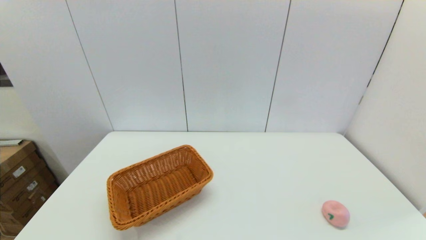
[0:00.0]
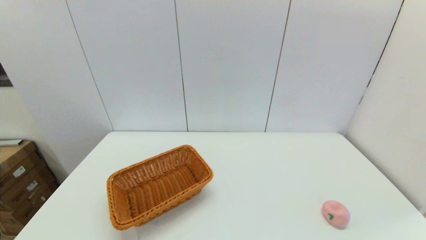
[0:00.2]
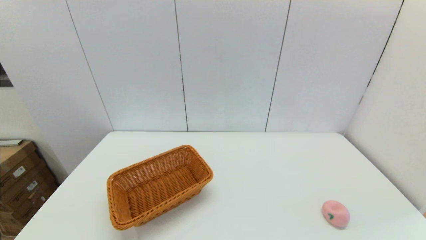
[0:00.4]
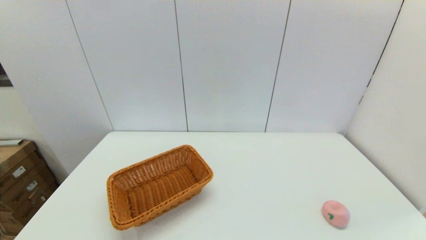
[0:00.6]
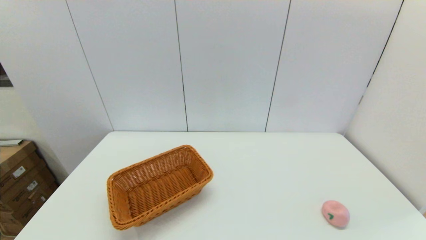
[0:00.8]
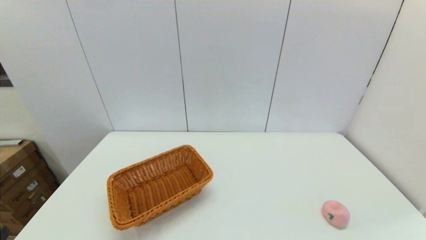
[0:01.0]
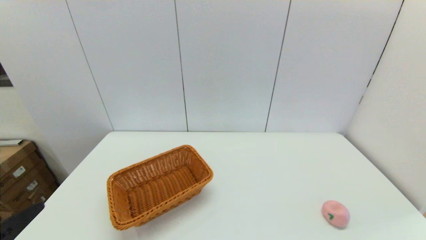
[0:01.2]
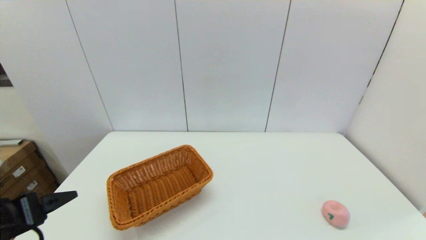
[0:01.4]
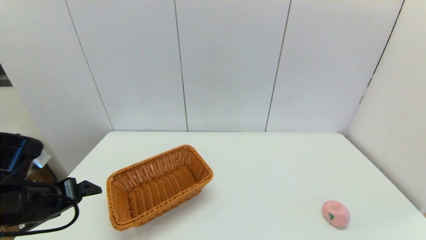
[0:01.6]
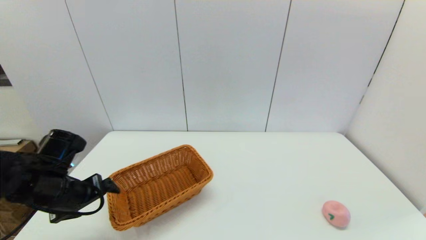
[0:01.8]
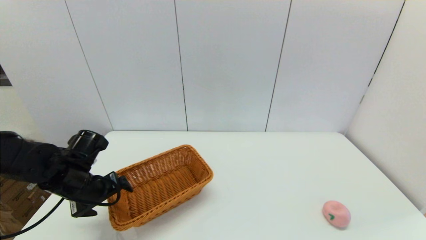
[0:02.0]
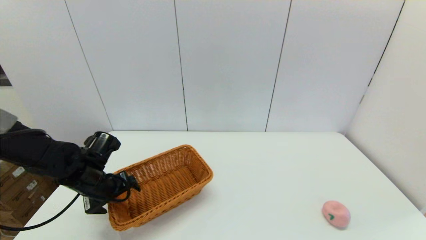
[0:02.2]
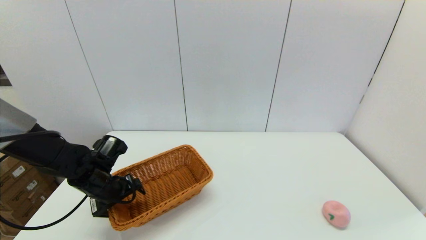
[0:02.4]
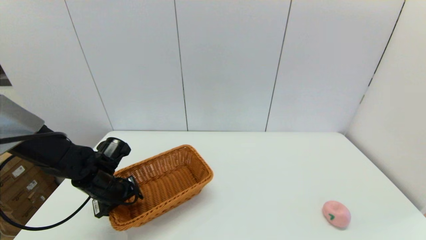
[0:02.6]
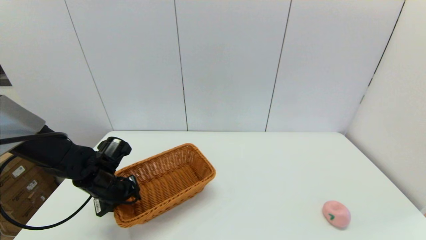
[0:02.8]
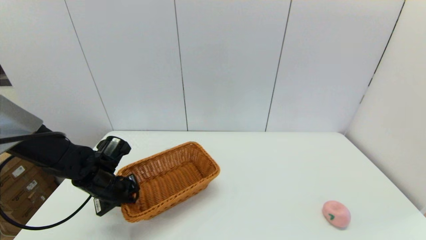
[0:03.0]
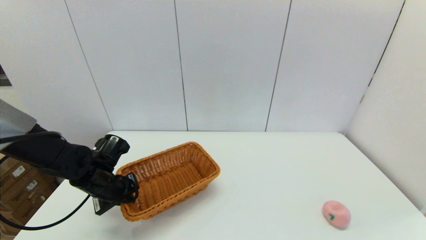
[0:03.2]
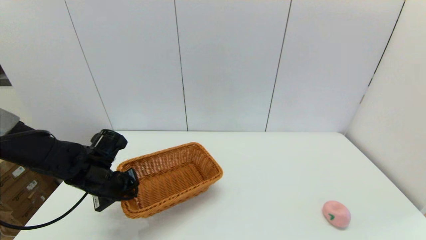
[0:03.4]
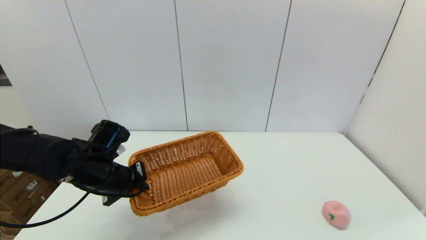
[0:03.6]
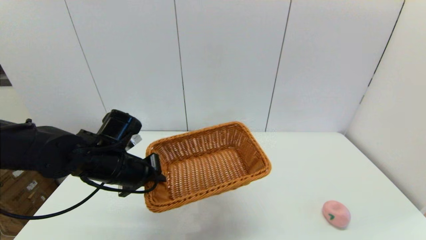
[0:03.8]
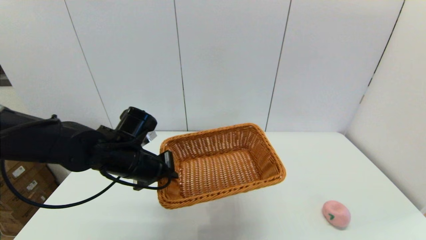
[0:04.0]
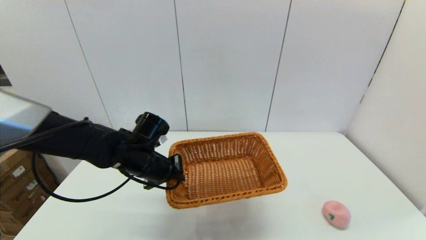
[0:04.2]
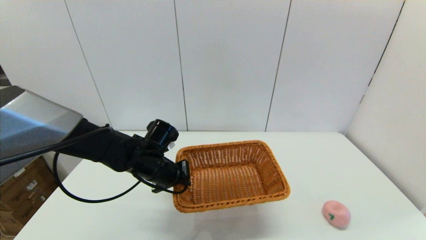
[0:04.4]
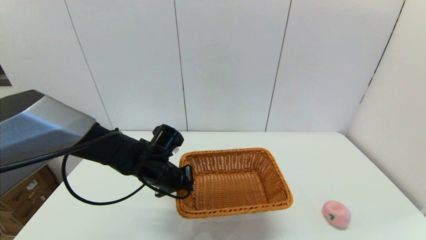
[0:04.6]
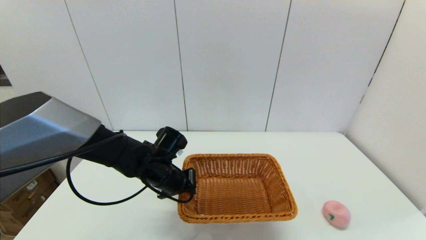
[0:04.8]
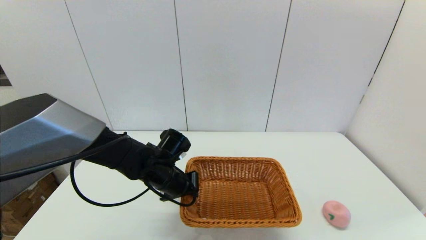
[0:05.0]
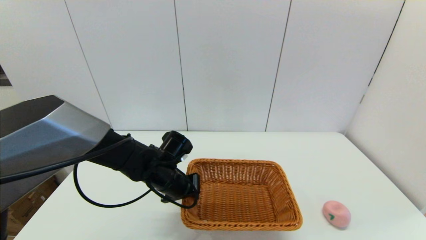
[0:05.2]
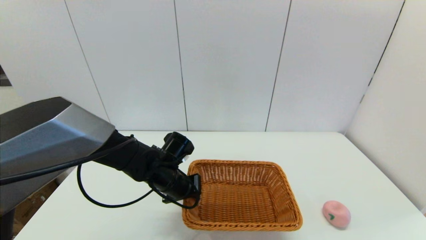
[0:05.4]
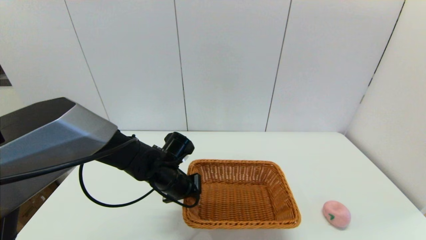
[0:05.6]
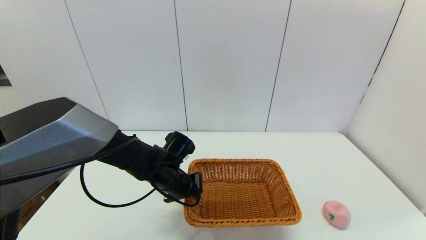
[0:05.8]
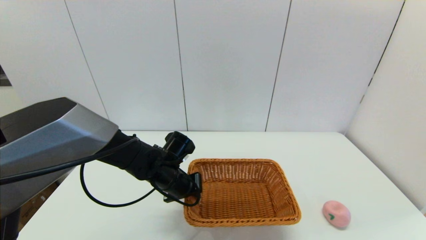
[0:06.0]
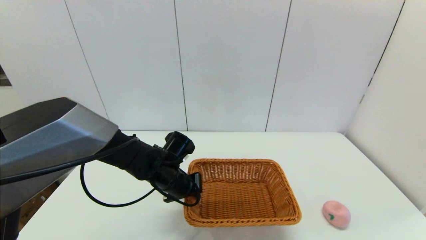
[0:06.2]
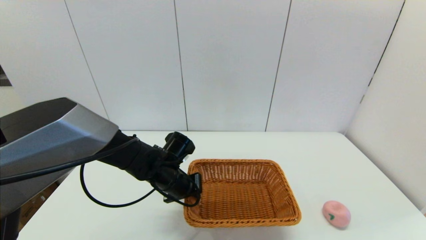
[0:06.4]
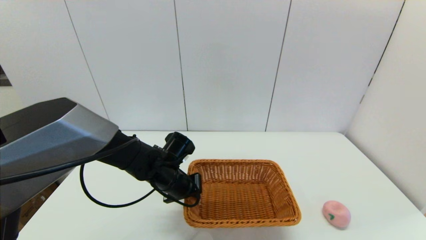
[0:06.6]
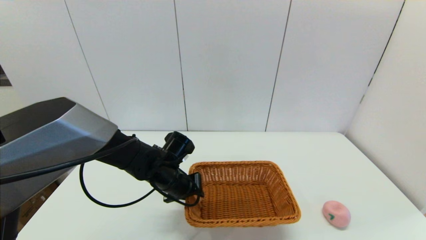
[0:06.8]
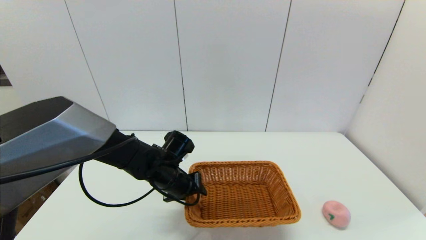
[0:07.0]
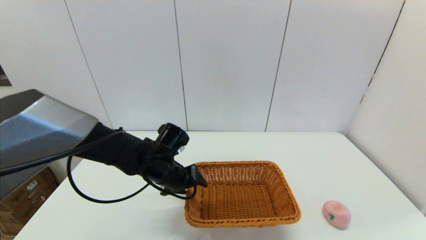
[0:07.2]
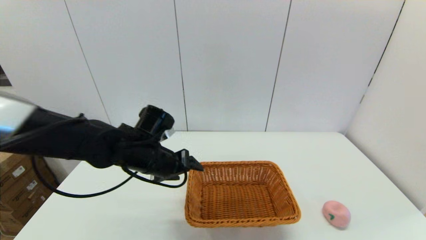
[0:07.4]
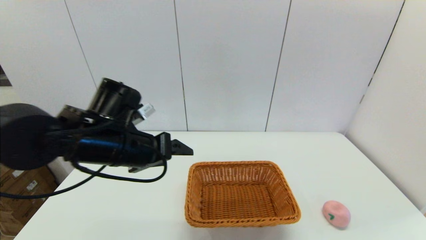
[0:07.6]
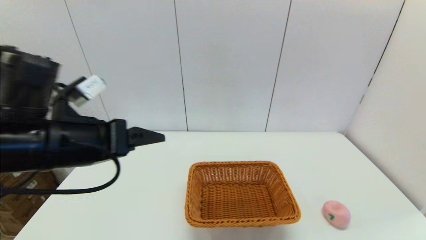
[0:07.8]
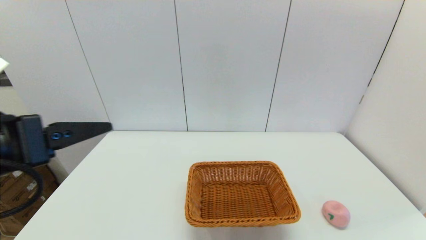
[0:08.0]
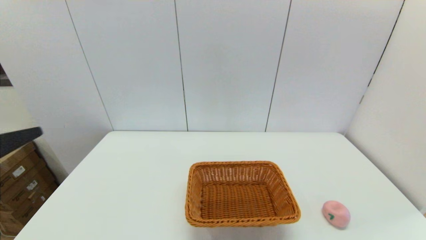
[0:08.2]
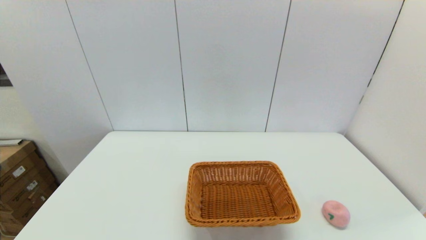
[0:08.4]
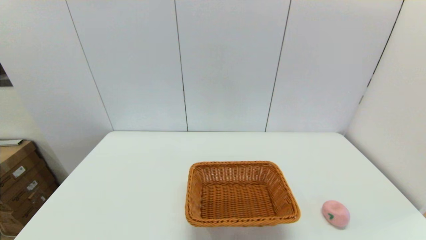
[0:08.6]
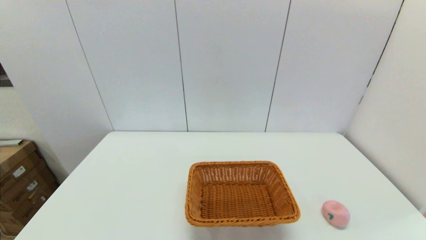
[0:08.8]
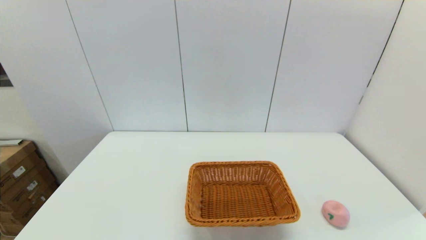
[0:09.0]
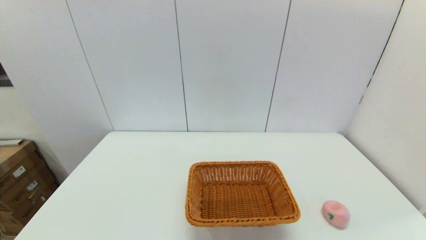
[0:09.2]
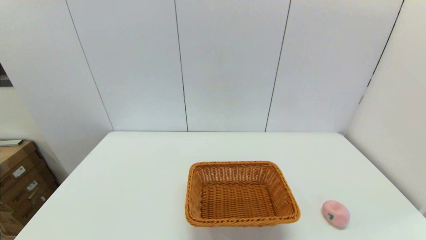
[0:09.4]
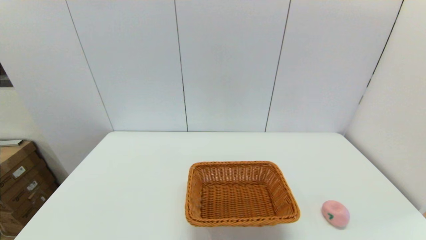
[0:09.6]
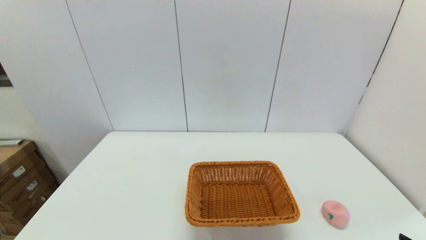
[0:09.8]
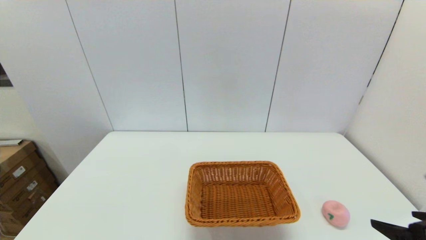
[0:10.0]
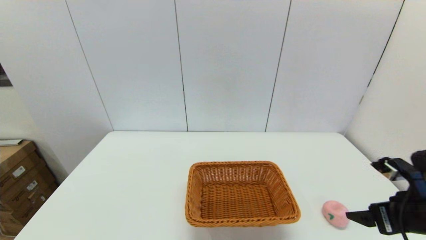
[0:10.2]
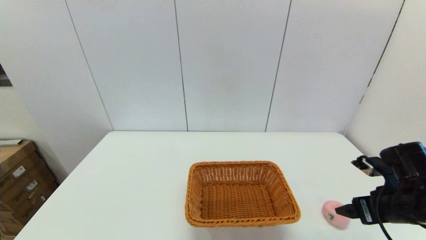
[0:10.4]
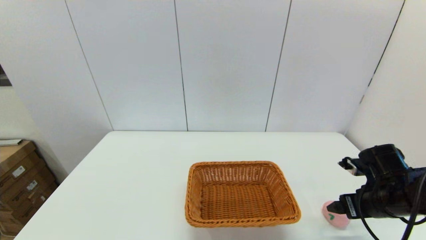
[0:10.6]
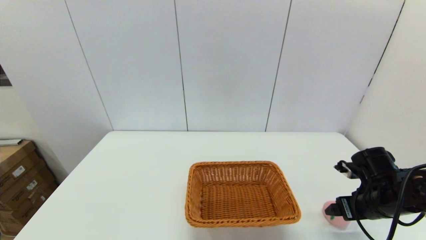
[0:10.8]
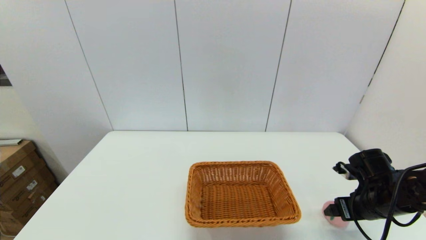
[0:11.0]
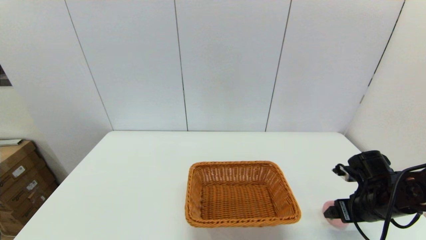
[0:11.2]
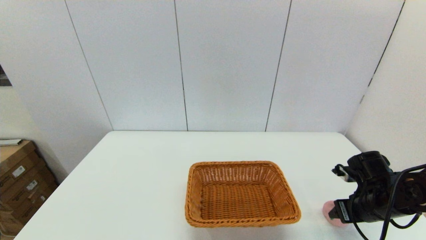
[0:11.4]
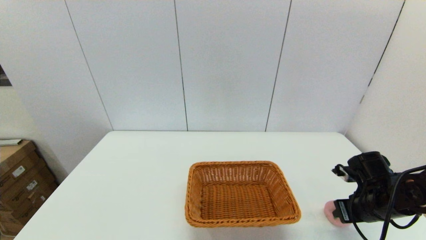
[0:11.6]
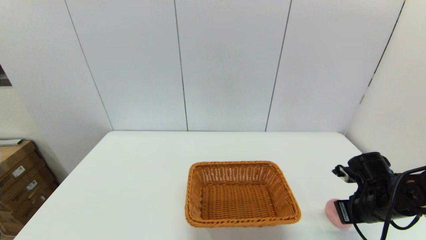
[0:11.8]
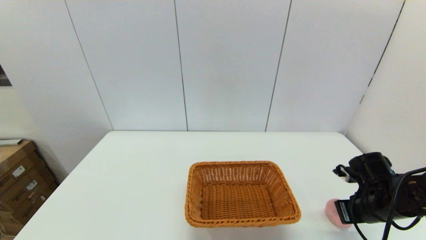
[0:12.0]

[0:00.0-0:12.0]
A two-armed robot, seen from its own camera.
Step, 0:00.0 to 0:03.0: Grasp the light basket with the left gripper.
Step, 0:03.4 to 0:07.2: Place the light basket on the middle of the table with the left gripper.
Step, 0:07.4 to 0:11.8: Grasp the peach with the right gripper.
0:00.0 to 0:01.6: The left gripper goes about 20 cm forward.
0:01.6 to 0:03.0: The left gripper heads forward and downward, covering about 15 cm, and closes up.
0:03.0 to 0:04.4: The left gripper goes approximately 10 cm to the right.
0:04.4 to 0:06.0: The grippers move only a little.
0:06.0 to 0:07.6: The left gripper is displaced upward and backward by approximately 15 cm, and opens up.
0:07.6 to 0:09.0: The left gripper moves backward and to the left, about 30 cm.
0:09.0 to 0:10.4: The right gripper heads forward, covering approximately 25 cm.
0:10.4 to 0:12.0: The right gripper shifts by roughly 5 cm, and closes up.

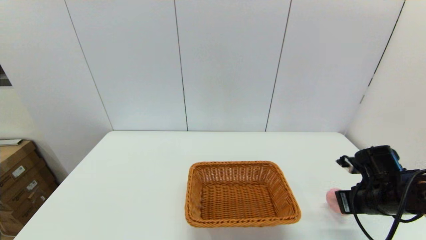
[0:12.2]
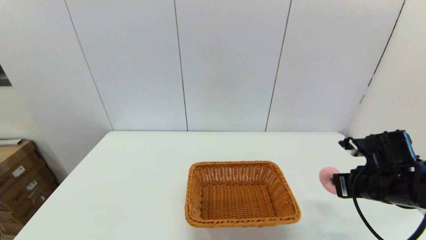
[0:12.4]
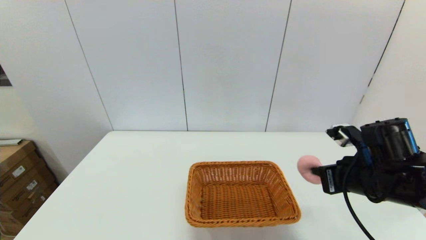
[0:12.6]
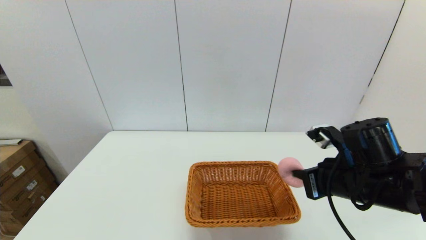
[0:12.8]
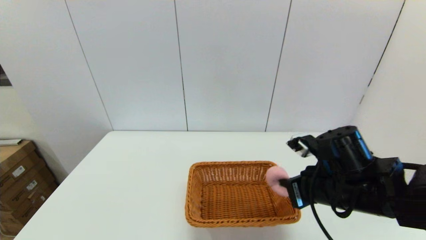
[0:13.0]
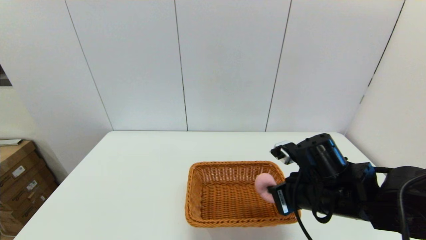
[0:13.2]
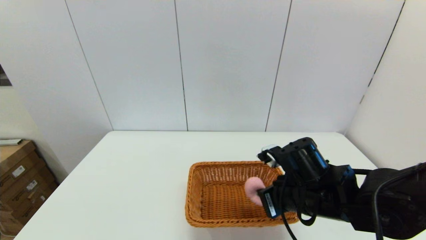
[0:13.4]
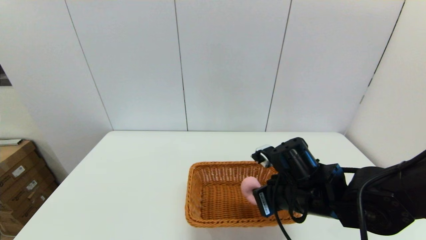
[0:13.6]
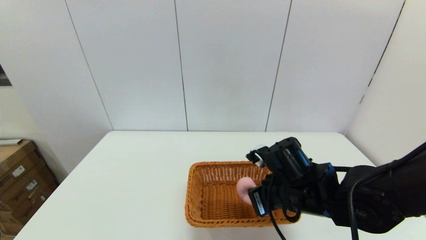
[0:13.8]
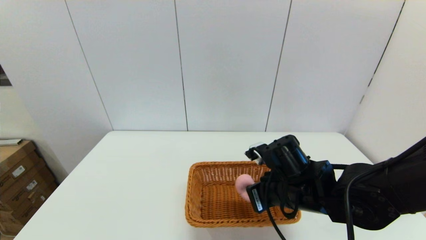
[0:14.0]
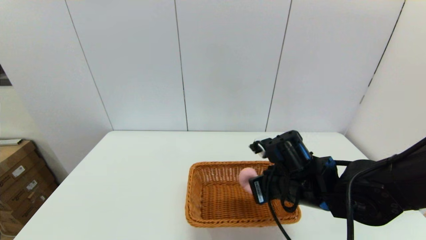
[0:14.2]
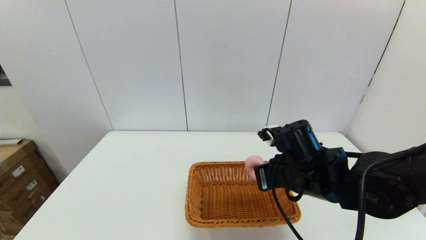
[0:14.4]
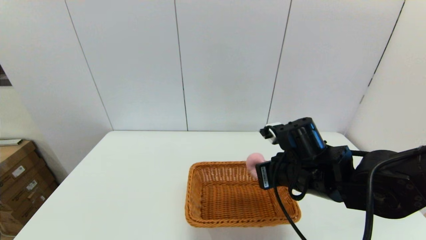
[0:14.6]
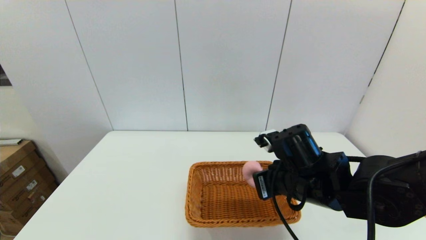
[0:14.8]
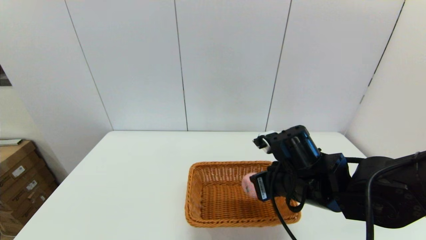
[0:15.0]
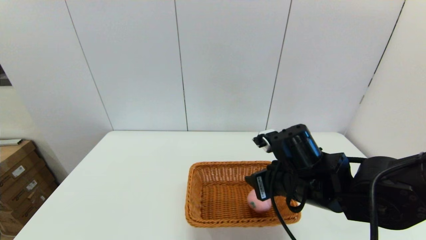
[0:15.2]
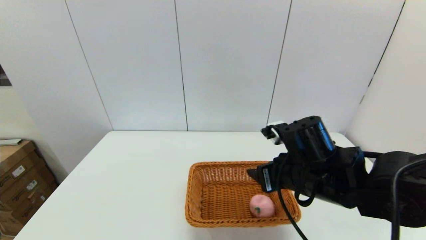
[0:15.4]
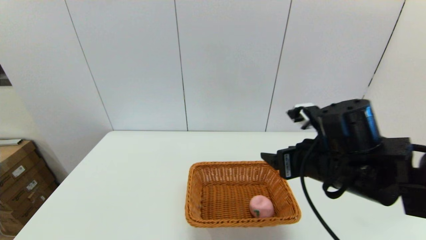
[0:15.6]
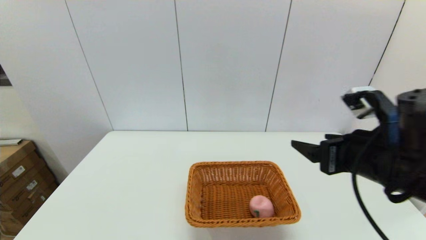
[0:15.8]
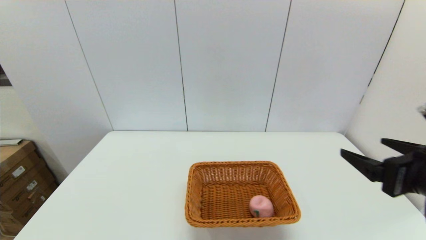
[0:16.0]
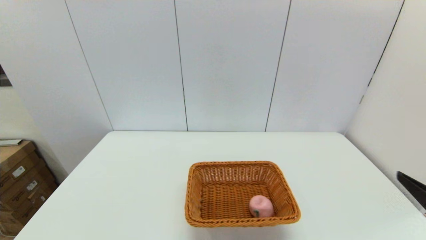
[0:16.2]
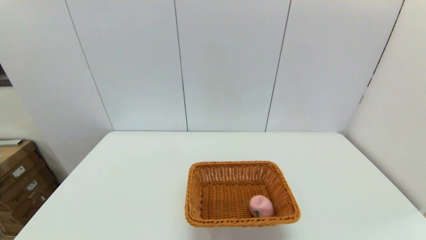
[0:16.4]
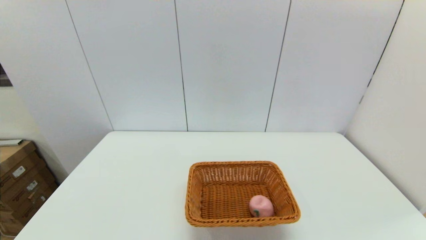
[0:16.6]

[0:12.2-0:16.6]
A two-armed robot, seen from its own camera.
Step, 0:12.2 to 0:15.2: Place the peach into the light basket with the right gripper.
0:12.2 to 0:13.6: The right gripper shifts approximately 20 cm to the left.
0:13.6 to 0:15.2: The right gripper opens.
0:15.2 to 0:16.6: The right gripper heads backward and to the right, covering approximately 30 cm, and opens up.
